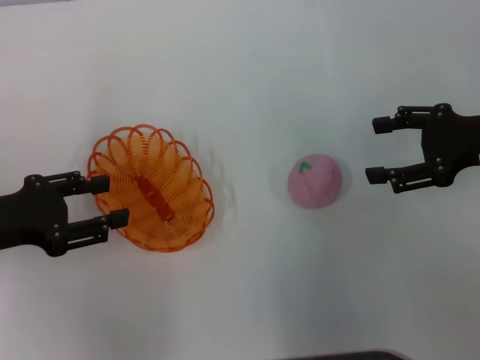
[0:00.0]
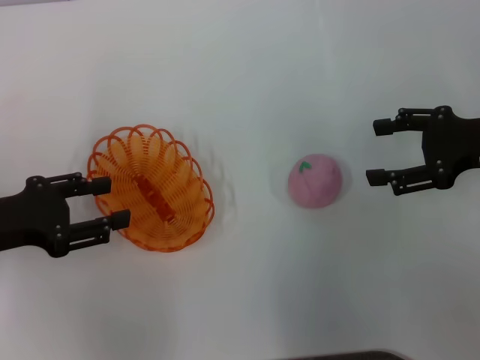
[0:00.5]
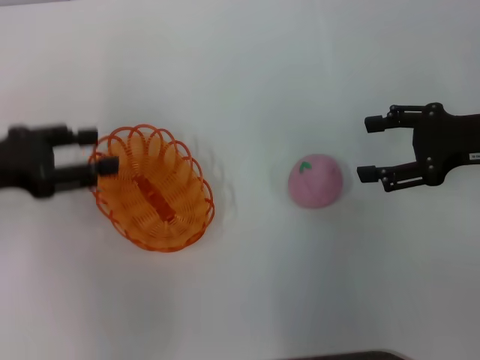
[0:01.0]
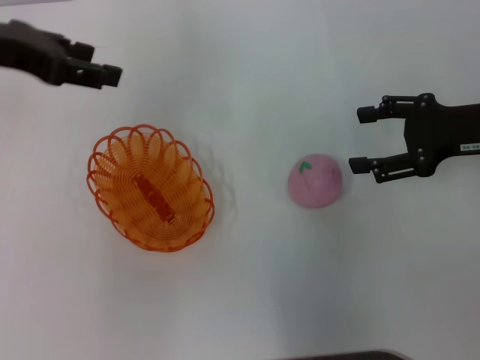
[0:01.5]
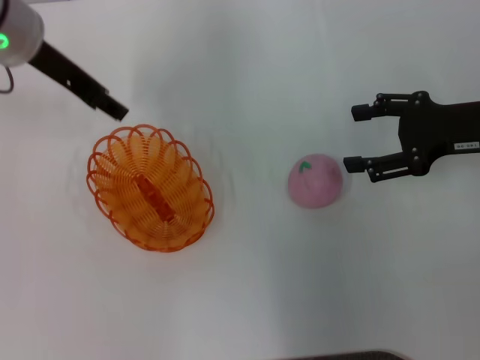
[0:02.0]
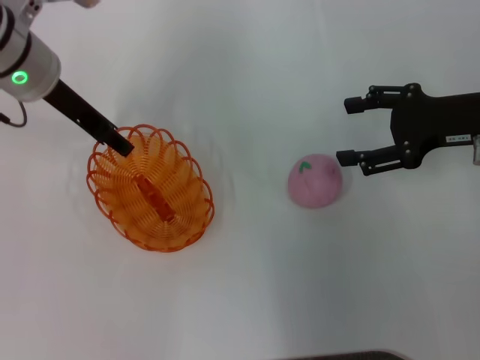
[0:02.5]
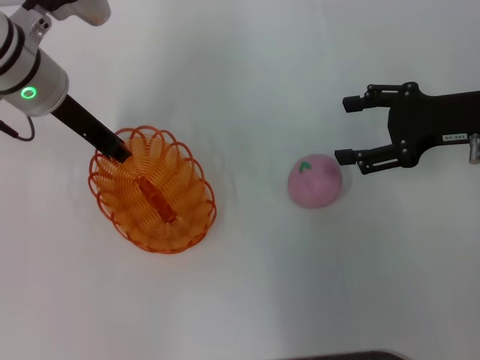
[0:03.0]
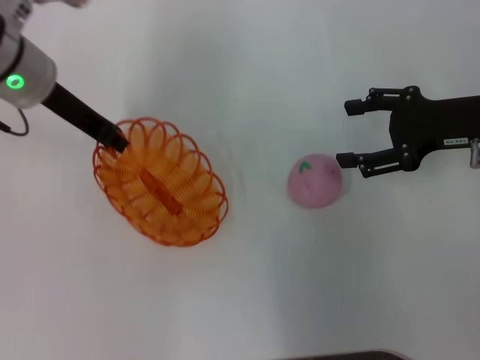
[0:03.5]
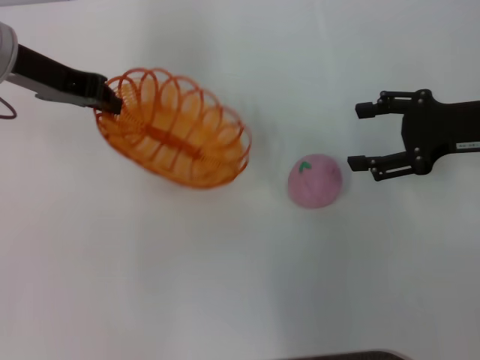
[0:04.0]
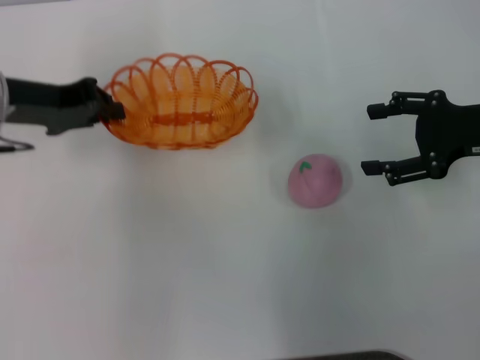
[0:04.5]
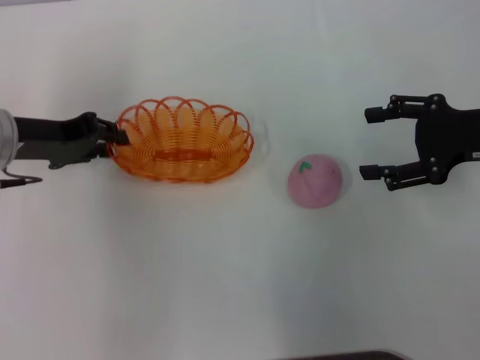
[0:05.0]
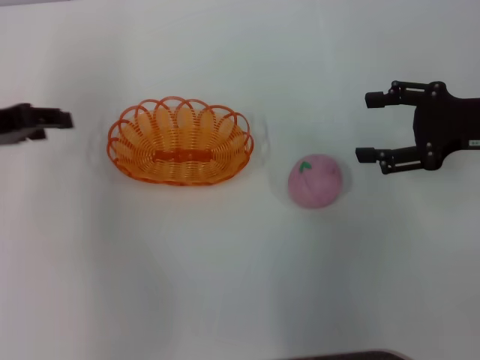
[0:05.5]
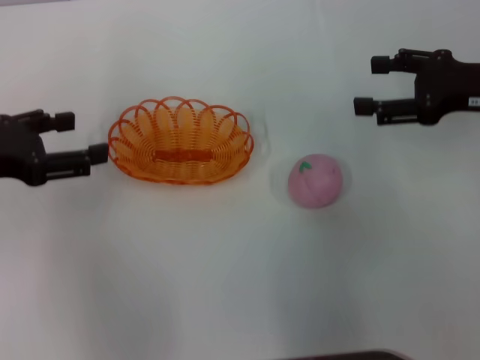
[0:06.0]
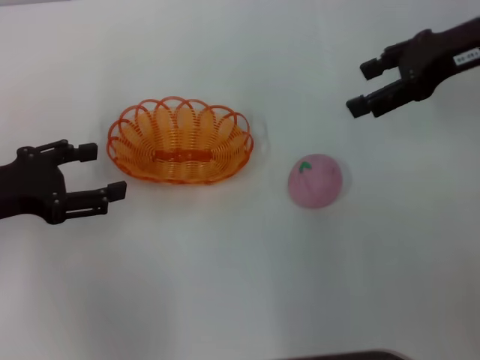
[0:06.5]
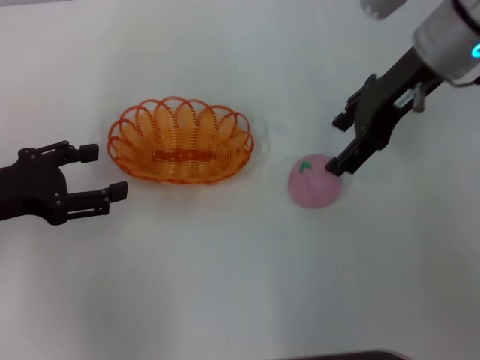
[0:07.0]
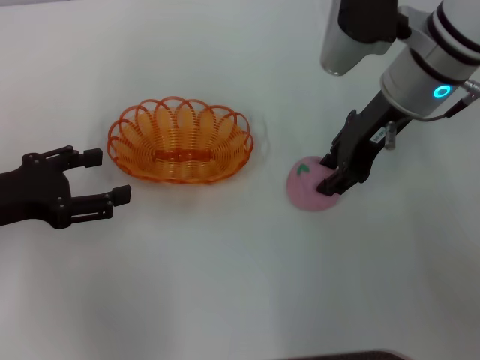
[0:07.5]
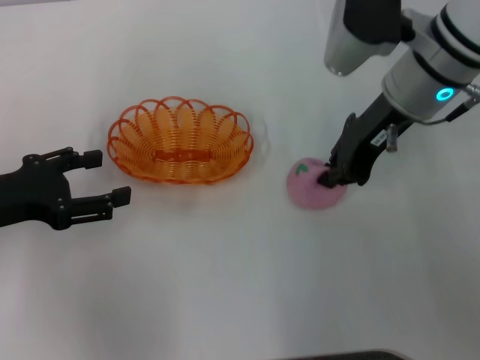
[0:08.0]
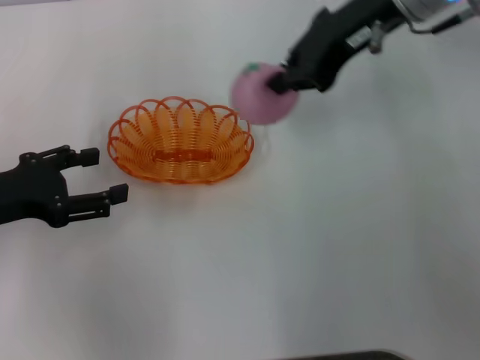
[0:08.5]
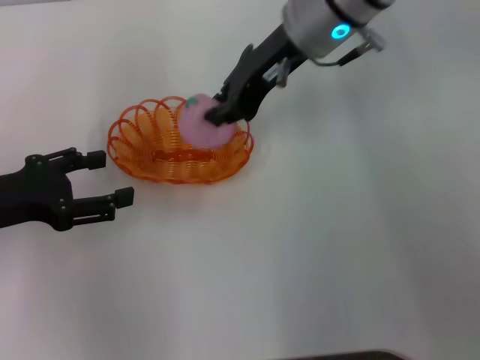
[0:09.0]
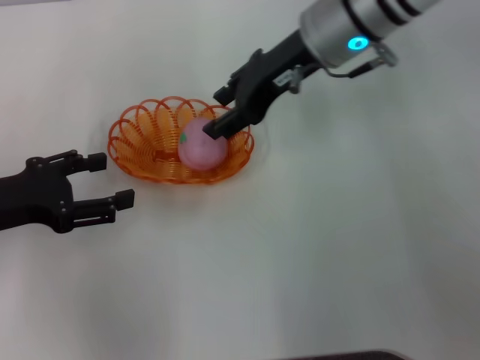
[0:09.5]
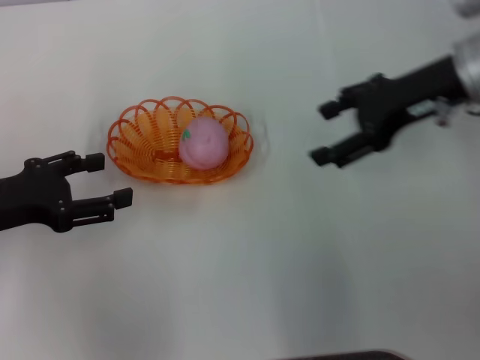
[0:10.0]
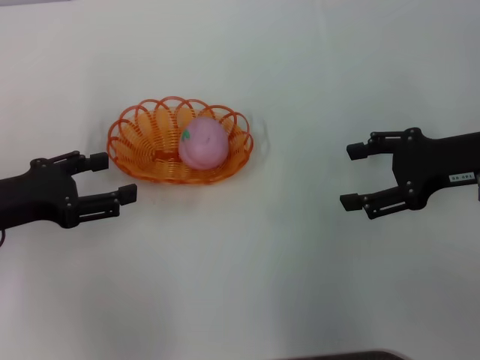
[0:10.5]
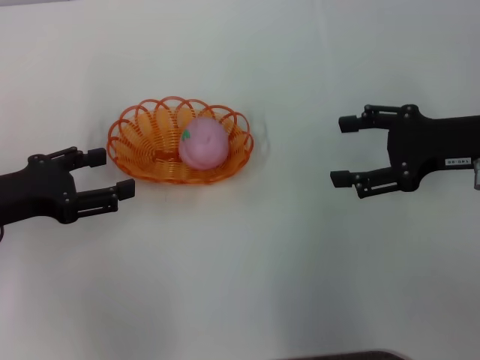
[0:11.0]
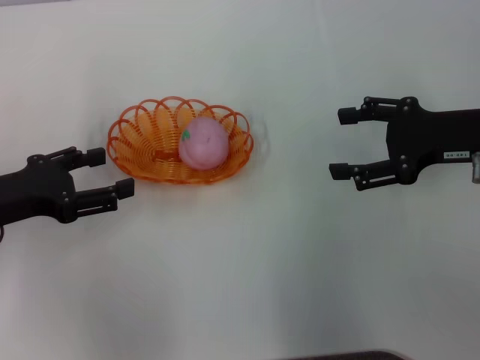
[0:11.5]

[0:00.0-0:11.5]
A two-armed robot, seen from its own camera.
Step, 0:00.0 to 0:03.5: Pick up the basket with the left gripper.
Step, 0:04.0 to 0:05.5: Place the basket in the center of view with the left gripper.
Step, 0:06.0 to 0:08.0: Pick up the peach with the right gripper.
Step, 0:08.5 to 0:09.5: Place the peach into the basket with the right gripper.
0:00.0 to 0:02.0: The left gripper moves forward, to the right and upward, some 20 cm.
0:02.0 to 0:04.0: The left gripper closes its fingers.
0:04.0 to 0:06.0: The left gripper travels backward and to the left by roughly 15 cm, and opens its fingers.
0:06.0 to 0:07.5: The right gripper shifts approximately 15 cm to the left.
0:07.5 to 0:09.5: The right gripper is displaced to the left by approximately 5 cm, moves some 10 cm upward and comes back, and closes, then opens again.
0:09.5 to 0:11.5: The right gripper heads to the right and backward, covering approximately 20 cm, and opens its fingers.

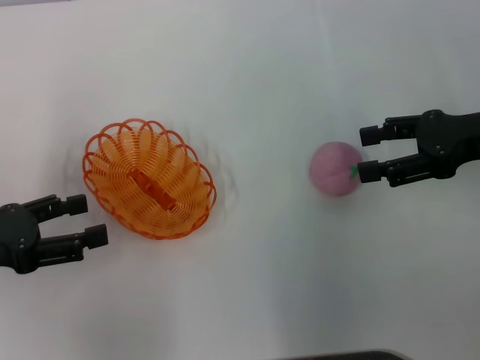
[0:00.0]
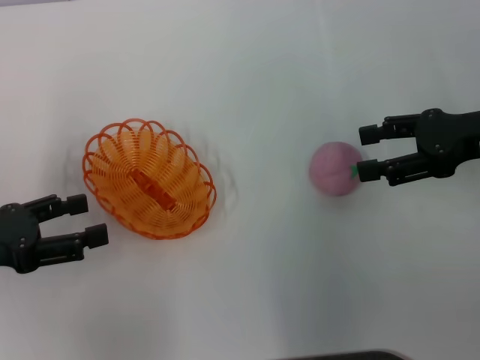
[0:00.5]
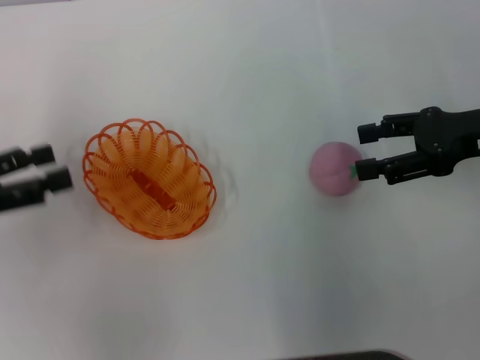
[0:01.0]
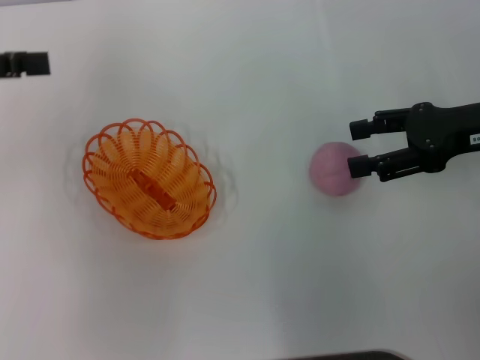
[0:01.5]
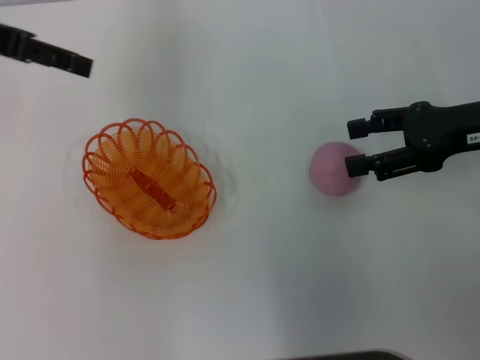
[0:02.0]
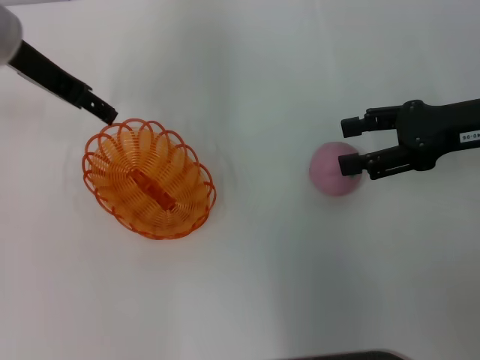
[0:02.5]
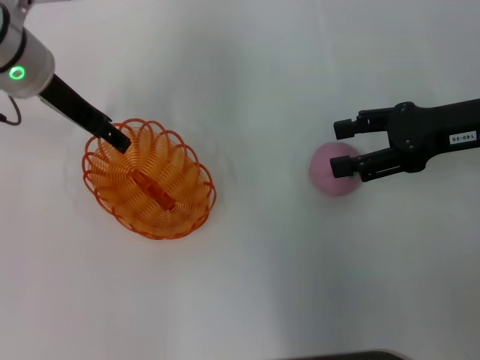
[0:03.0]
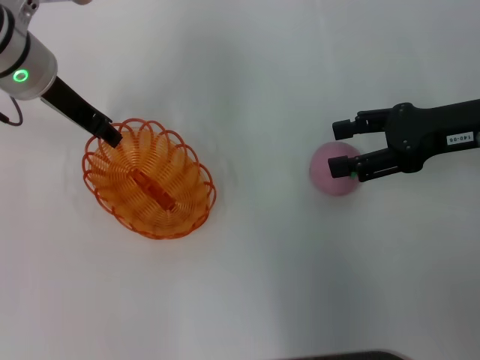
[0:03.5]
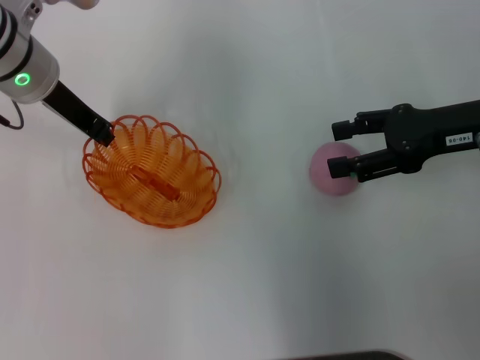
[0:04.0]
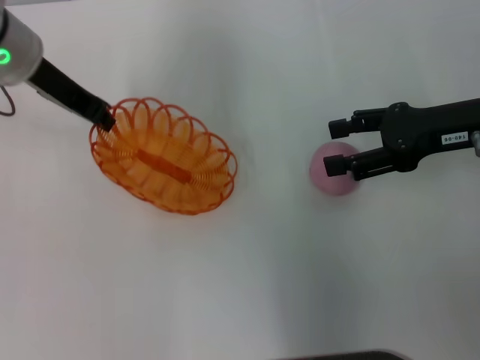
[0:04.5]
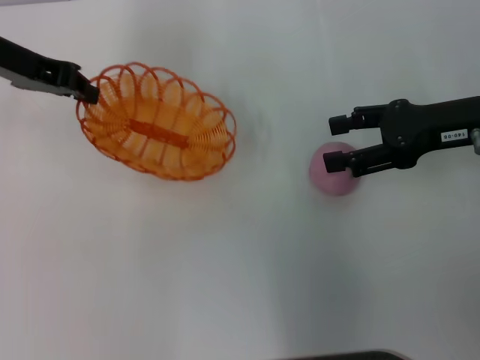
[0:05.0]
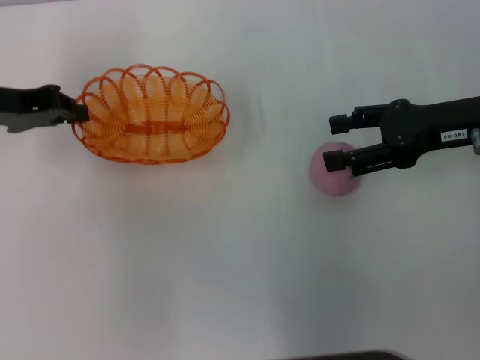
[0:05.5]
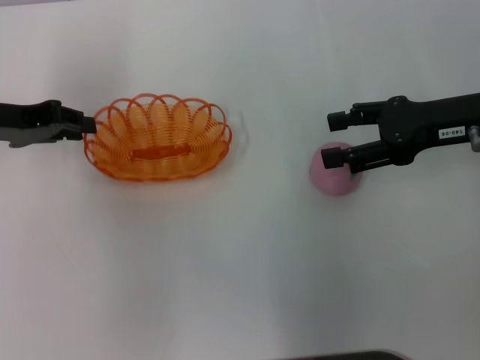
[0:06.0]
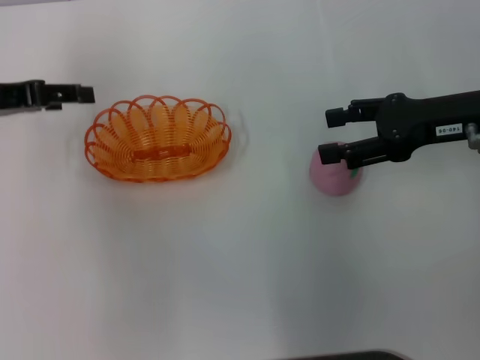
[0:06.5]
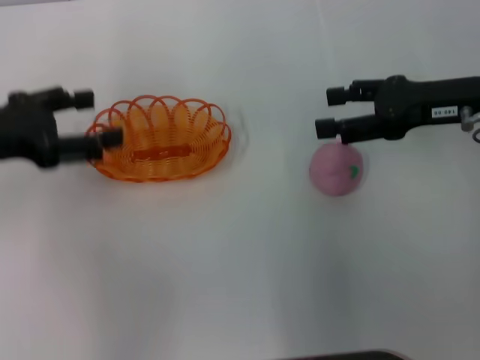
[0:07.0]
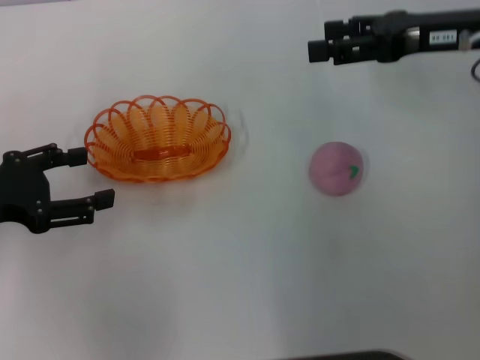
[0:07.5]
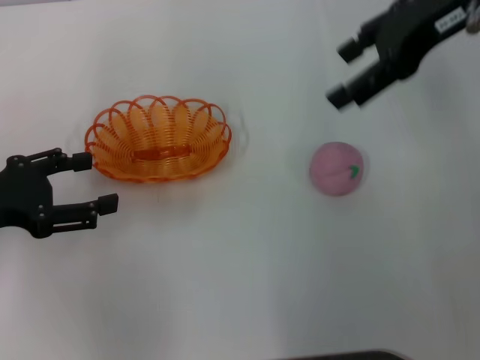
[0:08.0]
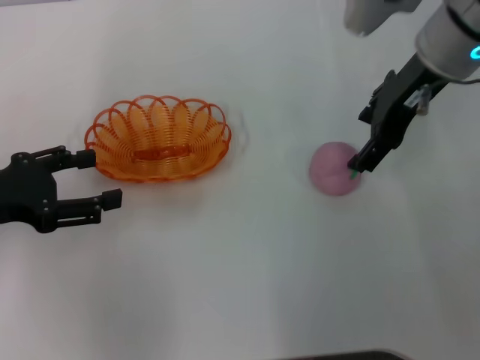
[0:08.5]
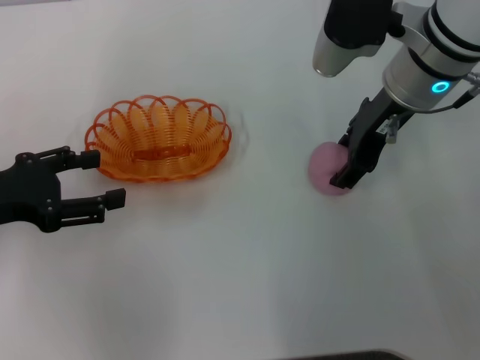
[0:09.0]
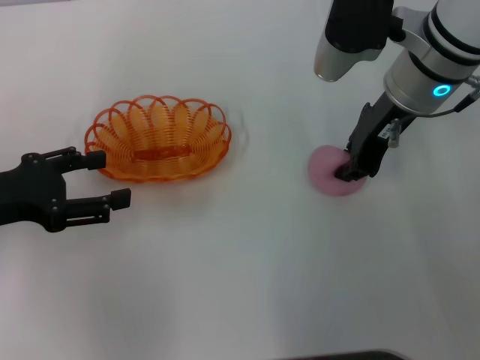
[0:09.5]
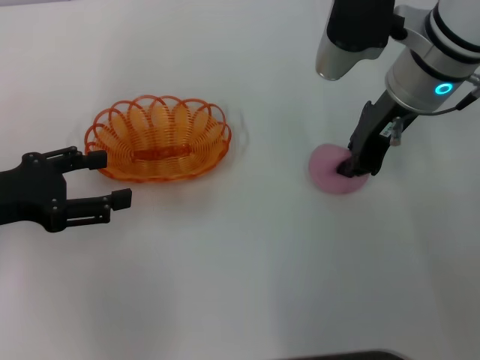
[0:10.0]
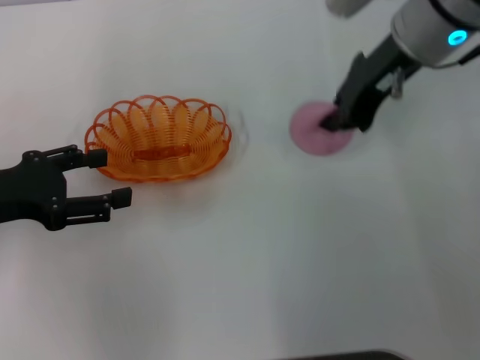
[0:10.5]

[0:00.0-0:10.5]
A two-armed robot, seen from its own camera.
Step, 0:00.0 to 0:04.0: Pick up the basket with the left gripper.
Step, 0:04.5 to 0:06.0: Place the basket in the center of view with the left gripper.
Step, 0:07.0 to 0:10.0: Pick up the peach with the right gripper.
0:00.0 to 0:02.0: The left gripper goes about 20 cm forward and upward.
0:02.0 to 0:04.0: The left gripper moves downward and to the right, some 10 cm, and closes up.
0:04.0 to 0:06.5: The left gripper travels to the left and backward by approximately 10 cm, and opens up.
0:06.5 to 0:08.5: The left gripper heads backward, covering some 10 cm. The right gripper shifts roughly 10 cm to the left and upward.
0:08.5 to 0:10.5: The right gripper closes up.

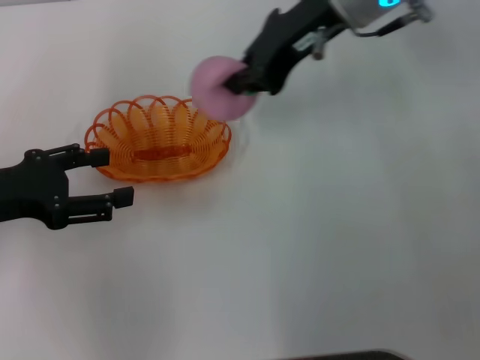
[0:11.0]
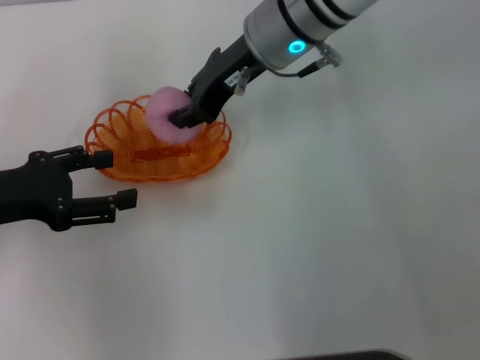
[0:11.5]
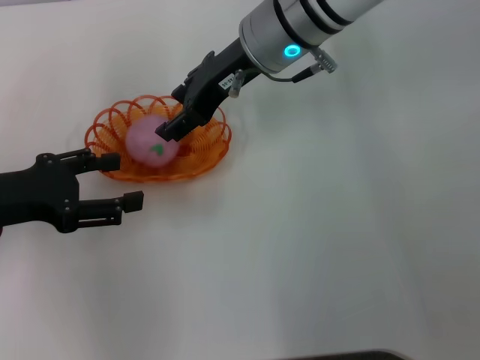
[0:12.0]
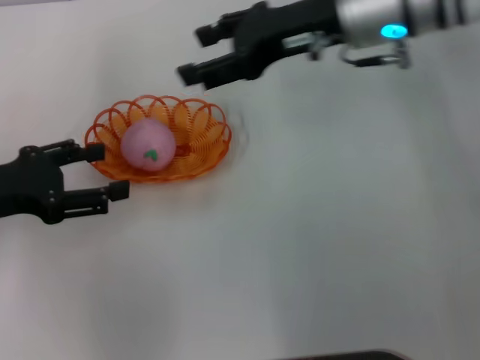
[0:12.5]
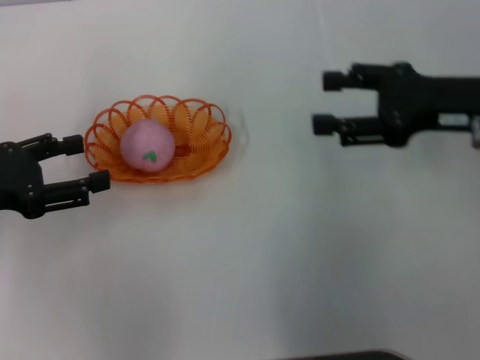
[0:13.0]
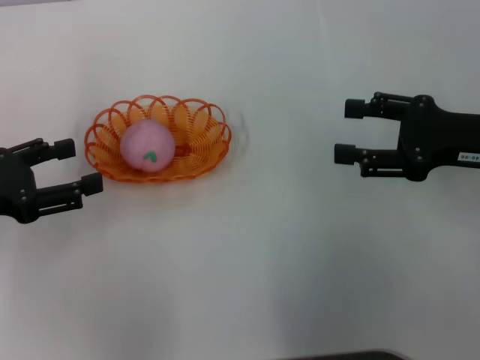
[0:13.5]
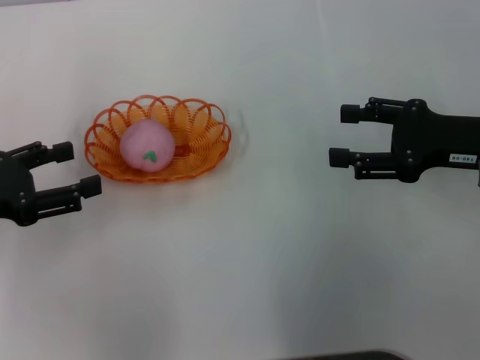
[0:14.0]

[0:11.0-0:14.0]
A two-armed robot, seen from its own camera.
Step, 0:11.0 to 0:12.0: Place the peach into the basket with the right gripper.
0:11.0 to 0:12.5: The right gripper moves approximately 5 cm to the left and comes back, and opens.
0:12.5 to 0:14.0: The right gripper heads to the right, backward and downward, covering some 20 cm.
